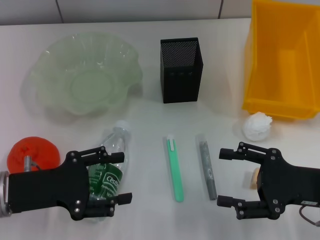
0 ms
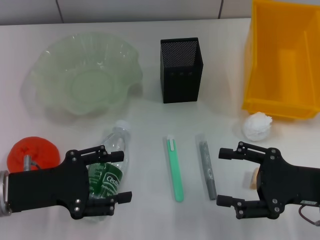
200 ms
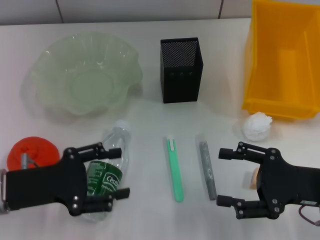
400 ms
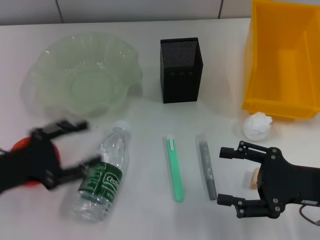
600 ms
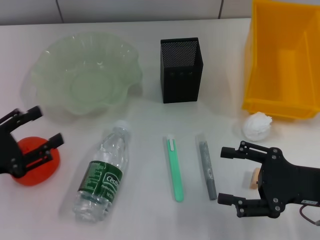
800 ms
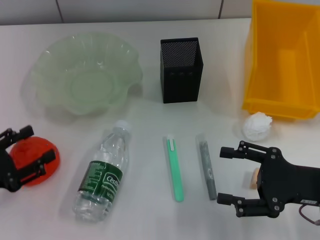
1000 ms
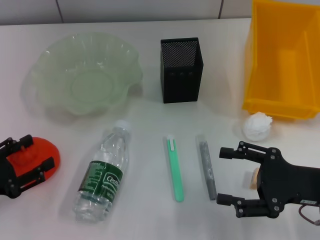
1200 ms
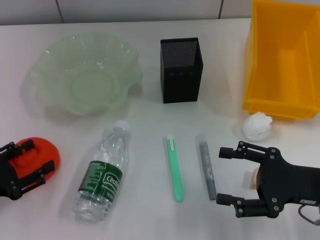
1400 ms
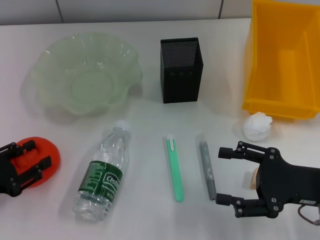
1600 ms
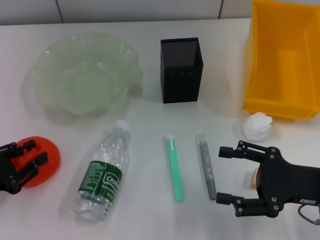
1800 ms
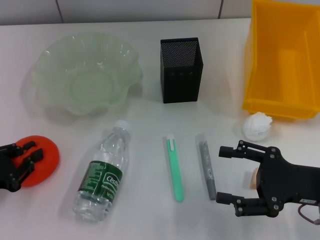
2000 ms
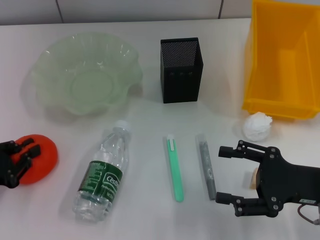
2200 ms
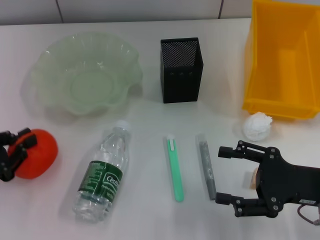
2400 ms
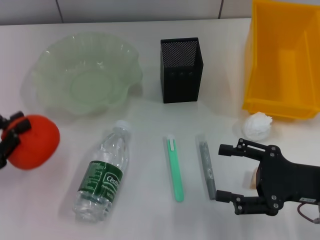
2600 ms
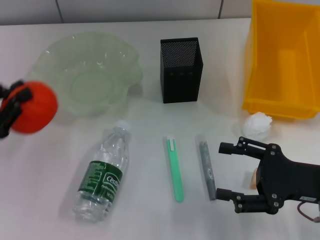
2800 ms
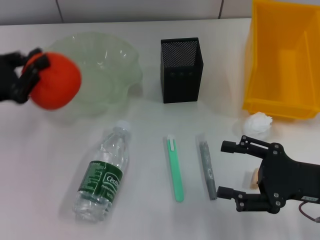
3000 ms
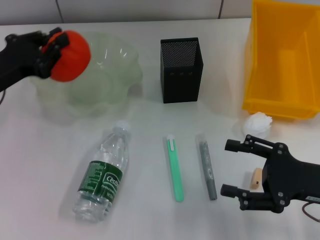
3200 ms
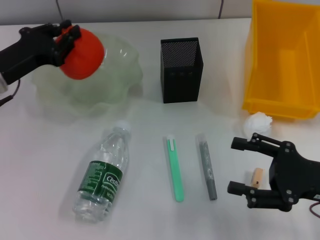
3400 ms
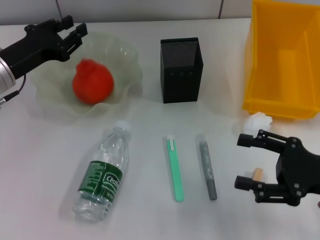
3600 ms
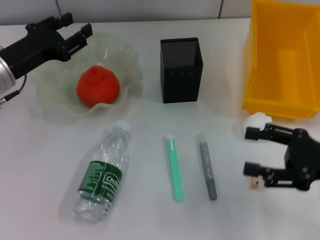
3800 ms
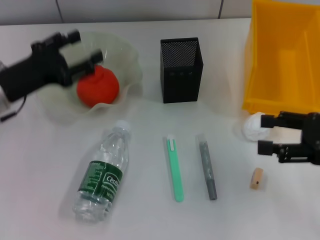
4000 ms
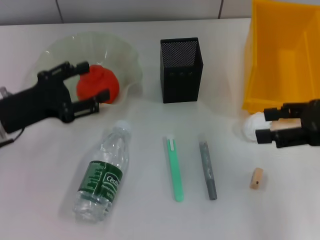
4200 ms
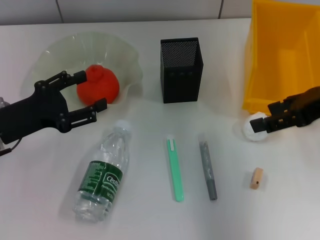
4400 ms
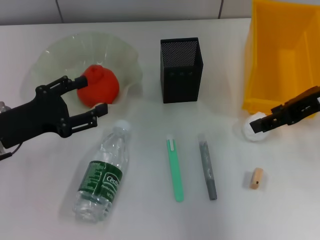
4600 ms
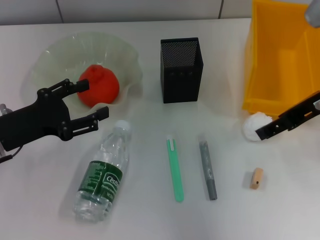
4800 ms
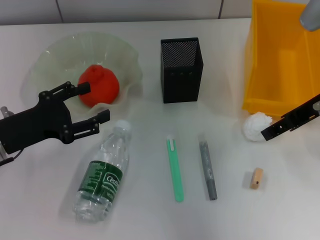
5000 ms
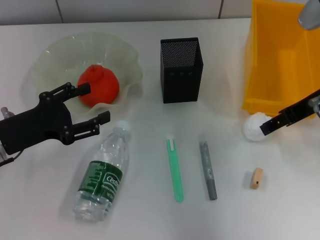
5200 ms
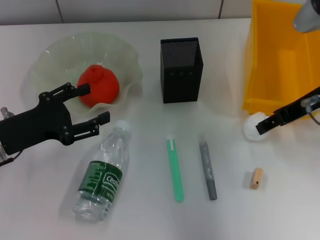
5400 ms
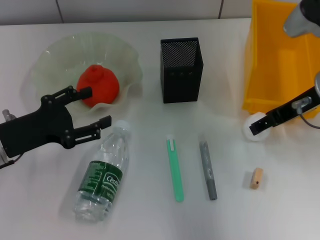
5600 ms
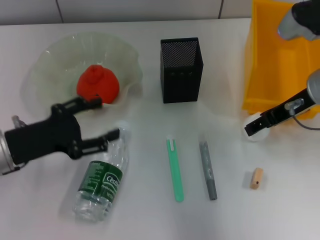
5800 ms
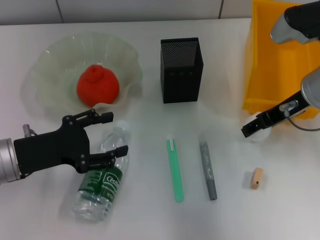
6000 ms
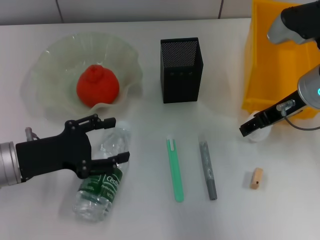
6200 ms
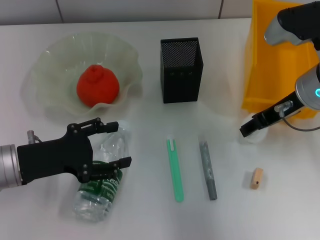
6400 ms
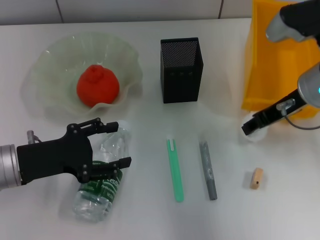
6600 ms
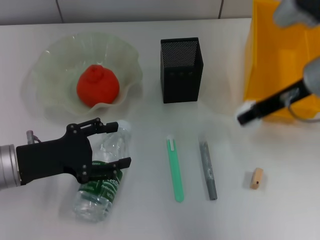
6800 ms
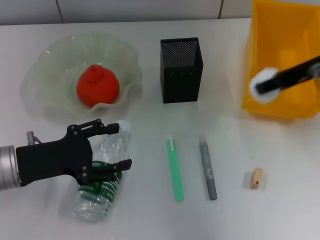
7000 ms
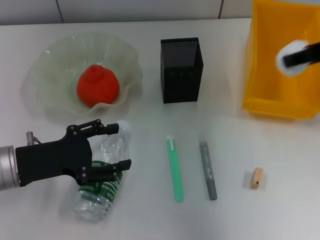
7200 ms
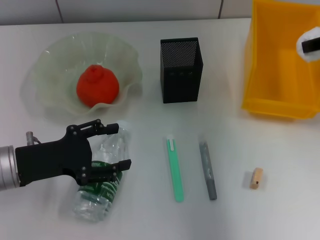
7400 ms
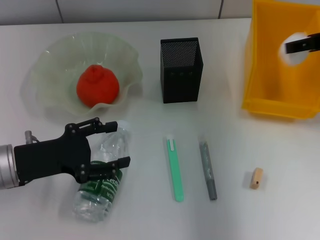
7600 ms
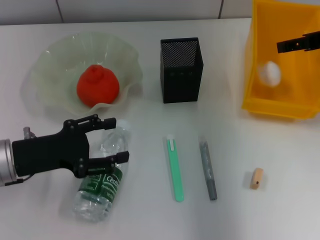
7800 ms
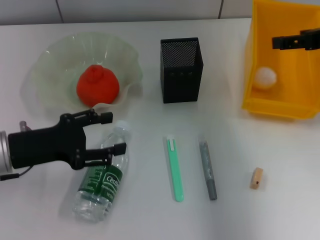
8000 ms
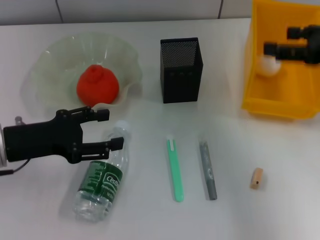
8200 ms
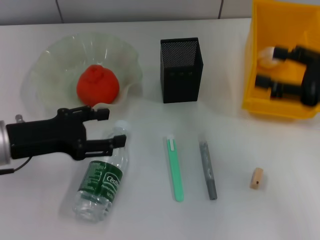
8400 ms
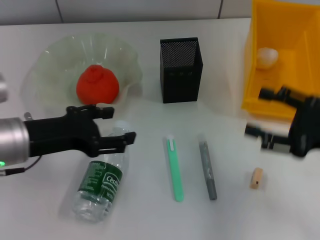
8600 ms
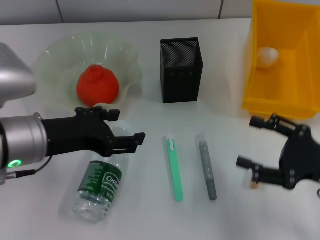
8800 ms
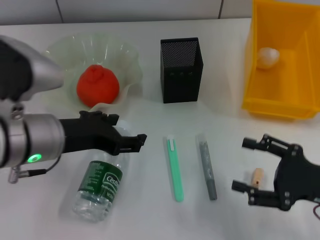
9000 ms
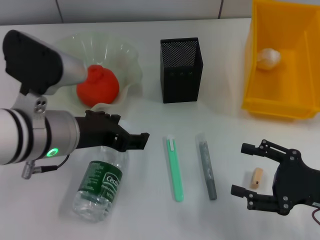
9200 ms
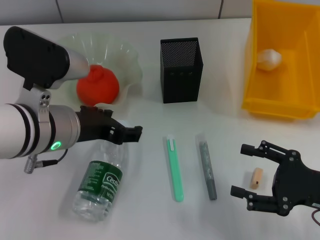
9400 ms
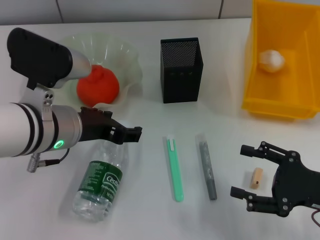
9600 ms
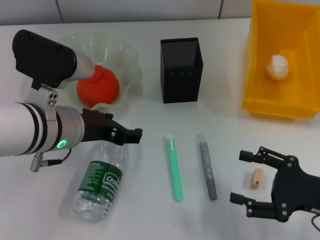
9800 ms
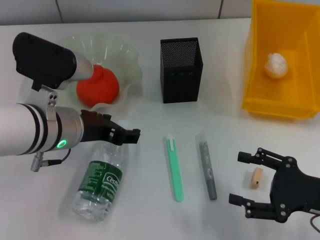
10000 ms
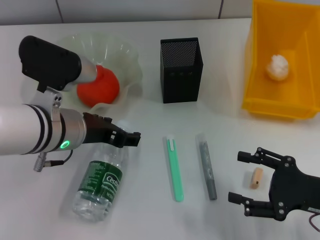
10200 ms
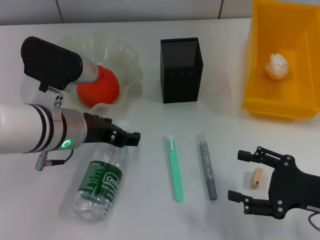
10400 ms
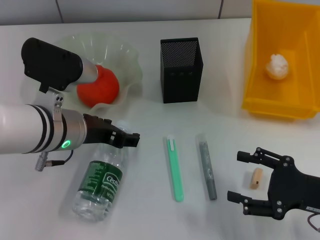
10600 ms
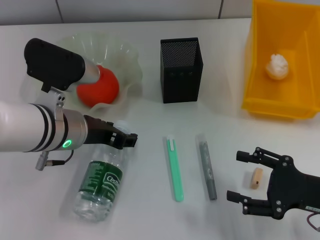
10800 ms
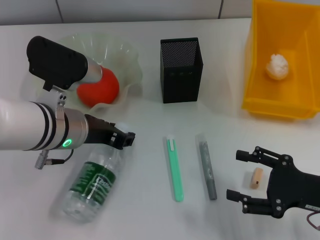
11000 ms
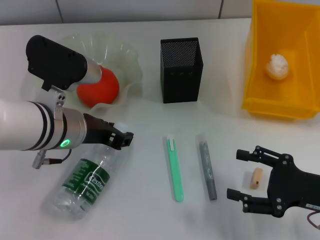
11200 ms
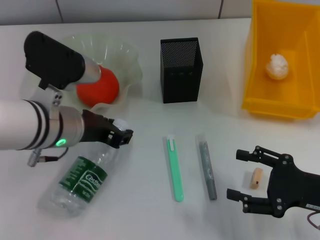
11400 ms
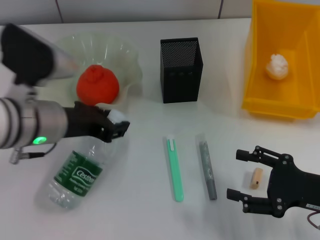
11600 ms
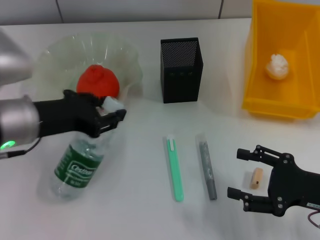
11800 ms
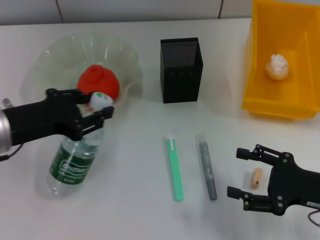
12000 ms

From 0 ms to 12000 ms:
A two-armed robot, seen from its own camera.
Step, from 0 ms to 2000 ms: Grab the orange with the left hand.
Step, from 2200 ms to 3800 ms: Place the orange into the fruit bowl with the left hand.
Step, from 4000 ms to 6200 ms: Grab the paper ball with the right hand.
Step, from 6600 ms to 7800 ms: Place the paper ball into the trash can with the right hand.
Step, from 8000 ms to 11000 ms: Grab the water bottle with the left hand.
From 0 ms to 1600 ms: The left gripper moves to the left, some 10 cm.
From 1600 ms to 3000 ms: The left gripper travels forward and upward by some 10 cm, and closes up.
From 3000 ms to 4400 ms: The right gripper travels upward and forward by approximately 15 cm. Meanwhile the left gripper reaches some 10 cm forward, then returns, and opens.
From 4400 ms to 6000 ms: The right gripper moves downward, approximately 5 cm.
From 6000 ms to 7600 ms: The right gripper moves to the right and upward, about 10 cm, and closes.
From 7600 ms to 9000 ms: The right gripper is displaced backward and downward by approximately 25 cm, and opens its fingers. The left gripper heads to the right and upward, covering some 10 cm.
From 9000 ms to 10400 ms: The left gripper changes place by approximately 5 cm.
From 10400 ms to 12000 ms: The left gripper travels to the left by some 10 cm, and closes its fingers.

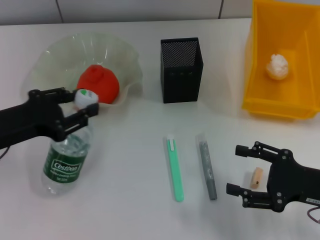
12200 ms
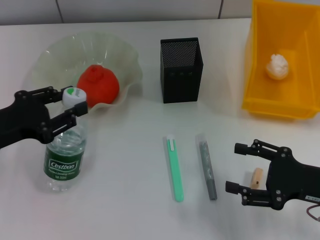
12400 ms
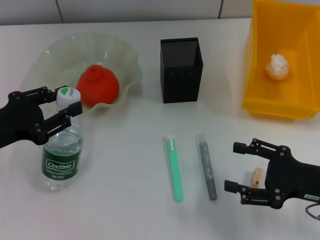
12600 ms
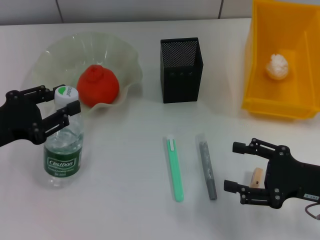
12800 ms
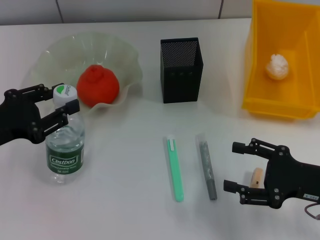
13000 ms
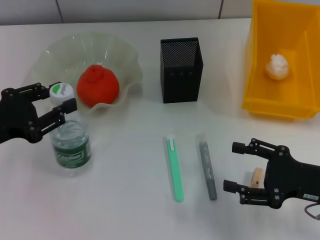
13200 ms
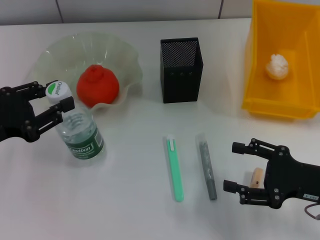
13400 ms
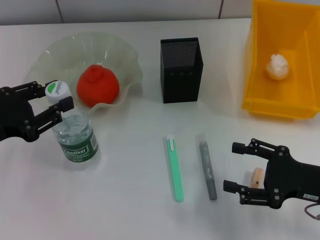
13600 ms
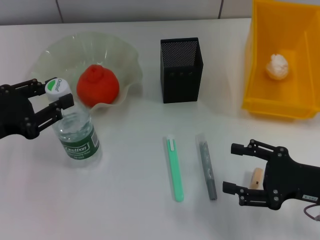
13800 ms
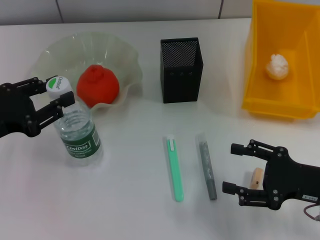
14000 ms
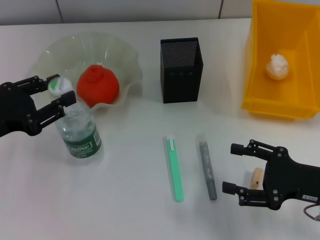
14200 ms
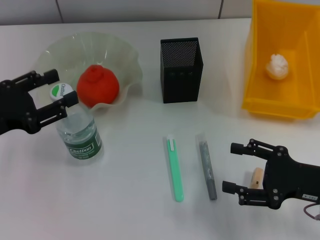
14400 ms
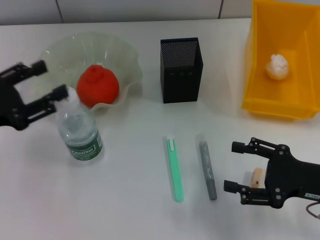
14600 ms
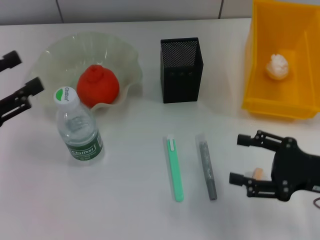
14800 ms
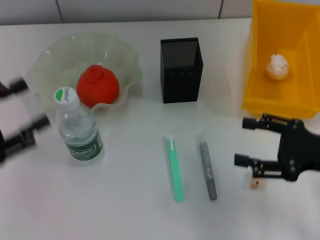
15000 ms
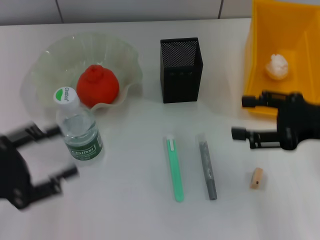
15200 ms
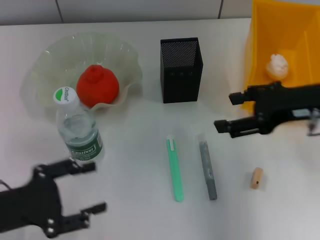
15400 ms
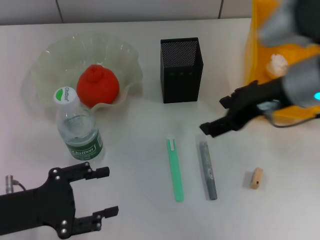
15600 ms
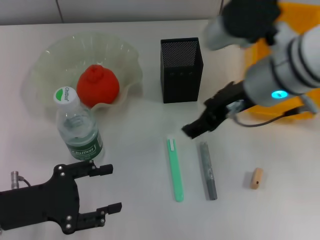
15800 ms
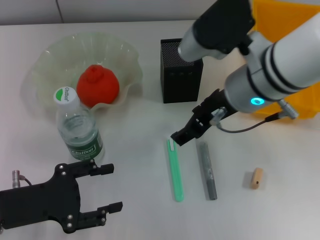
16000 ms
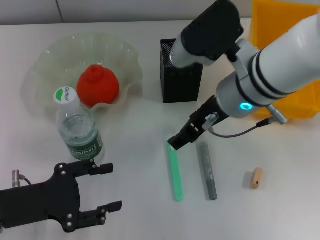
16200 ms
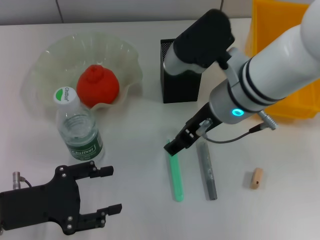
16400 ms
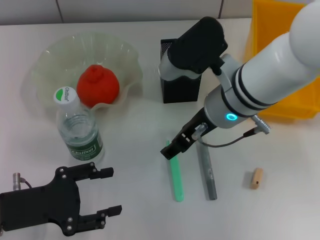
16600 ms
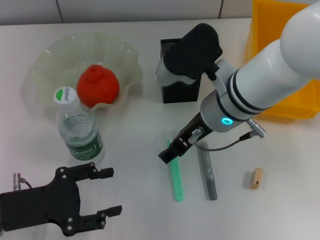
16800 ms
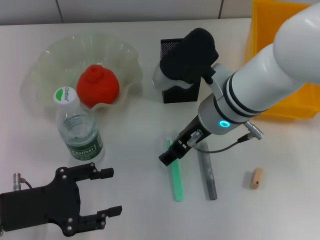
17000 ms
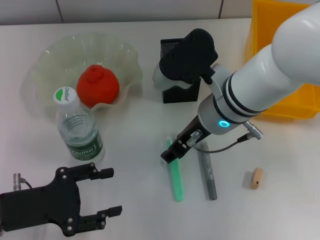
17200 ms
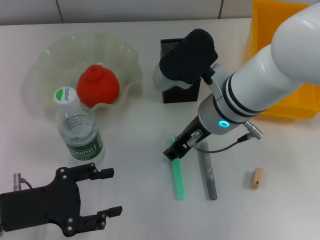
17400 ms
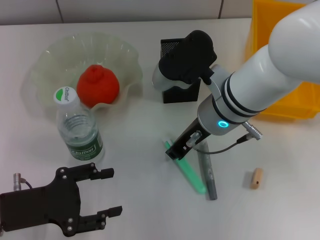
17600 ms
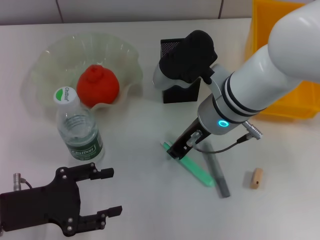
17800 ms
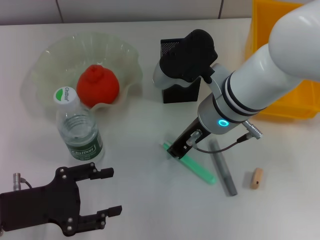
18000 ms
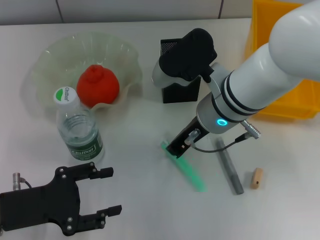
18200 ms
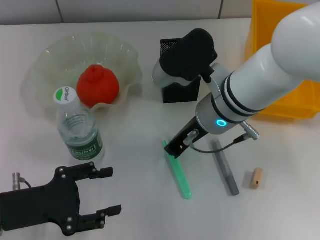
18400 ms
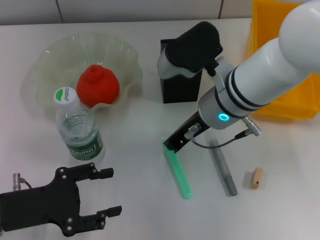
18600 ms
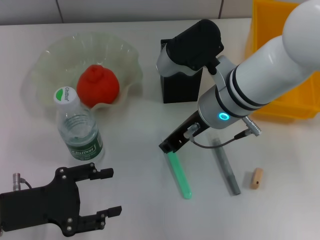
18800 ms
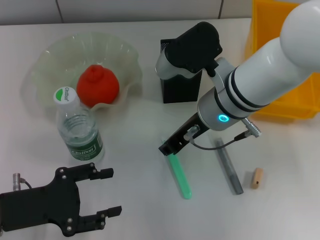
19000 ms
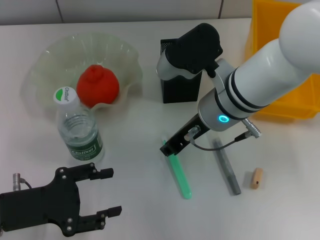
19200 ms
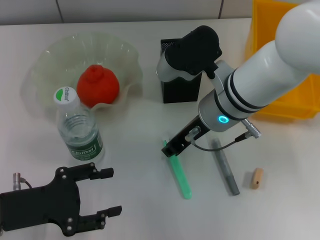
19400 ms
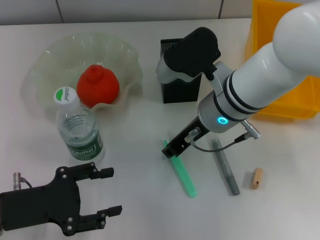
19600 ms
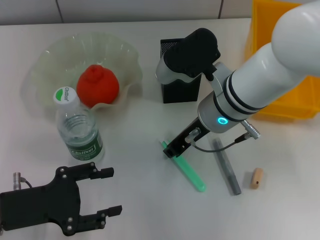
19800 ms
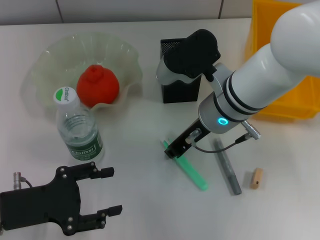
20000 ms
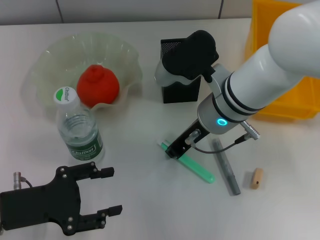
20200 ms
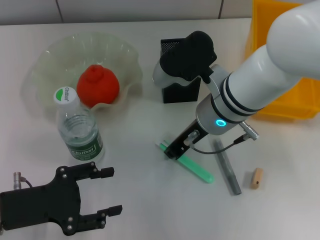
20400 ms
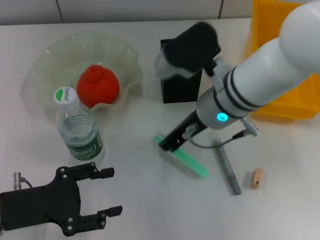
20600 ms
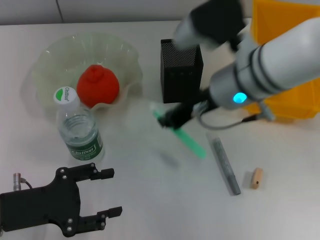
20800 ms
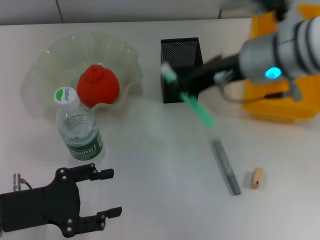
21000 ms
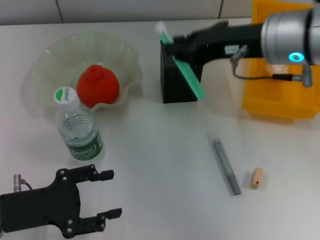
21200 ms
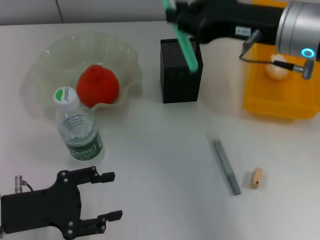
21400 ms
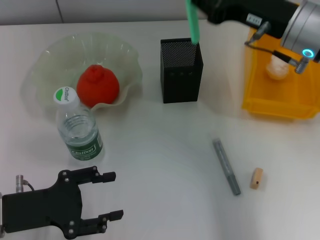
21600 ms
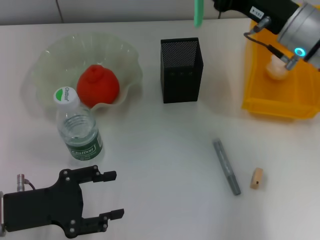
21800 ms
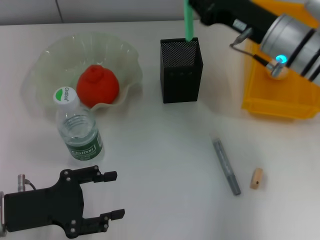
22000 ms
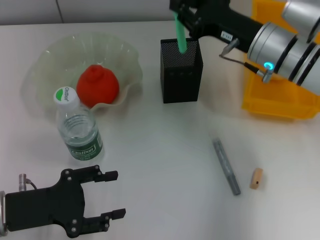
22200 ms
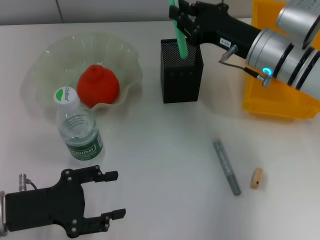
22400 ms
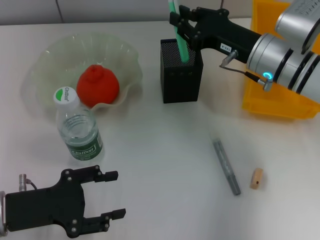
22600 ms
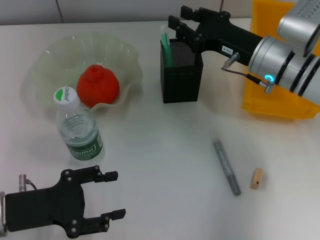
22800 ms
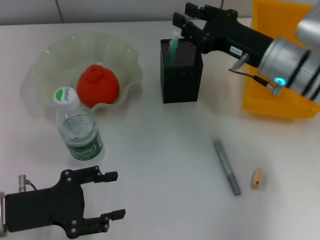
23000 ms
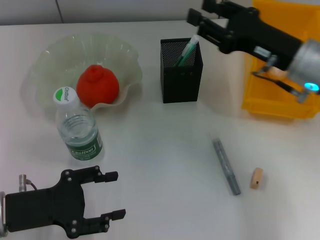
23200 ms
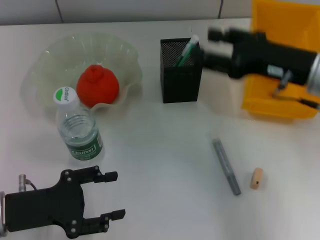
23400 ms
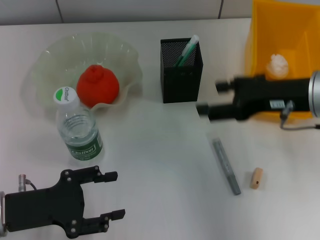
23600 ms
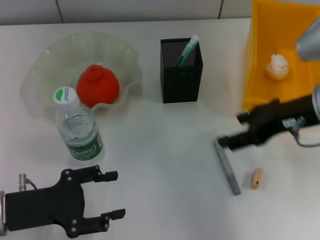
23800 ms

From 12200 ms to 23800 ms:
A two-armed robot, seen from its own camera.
Step, from 12200 ms to 14800 ms: Place the water bottle on the table with the left hand.
Step, from 15000 ms to 20200 ms: Grab the blue utility knife with the right hand.
Step, from 20400 ms to 23000 ms: Place the blue utility knife into the pen holder with the right hand.
From 12200 ms to 13600 ms: The grippers stay close to where they were, moving slightly.
From 13600 ms to 15000 ms: The right gripper moves some 5 cm. Meanwhile the left gripper shifts by some 5 cm, and opens up.
From 15000 ms to 16600 ms: The right gripper is displaced to the left and forward by approximately 20 cm. The left gripper is displaced downward and to the right by approximately 10 cm.
From 16600 ms to 18000 ms: The right gripper closes its fingers.
From 18000 ms to 19400 ms: The grippers make only small movements.
From 19400 ms to 21000 ms: The right gripper heads upward and to the right, covering approximately 10 cm.
From 21000 ms to 22400 ms: The right gripper heads downward and forward, covering roughly 10 cm.
From 22400 ms to 23800 ms: The right gripper heads backward and upward, covering roughly 10 cm, and opens.
